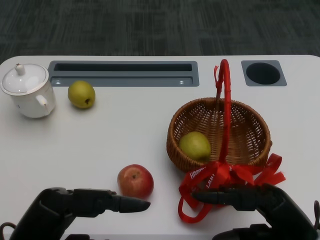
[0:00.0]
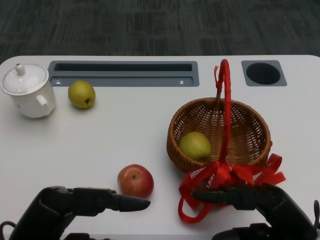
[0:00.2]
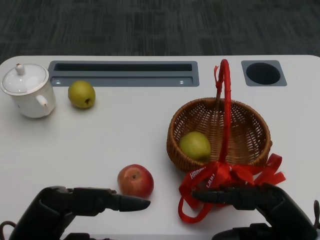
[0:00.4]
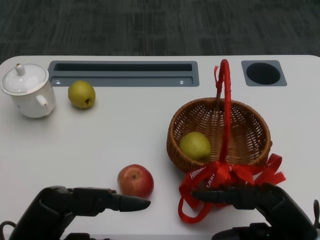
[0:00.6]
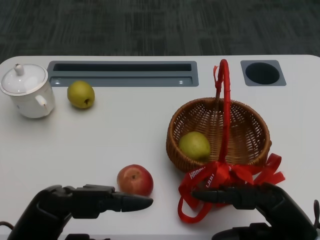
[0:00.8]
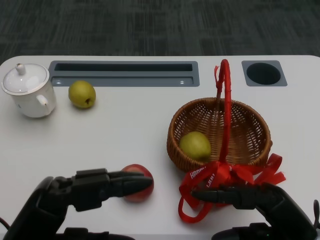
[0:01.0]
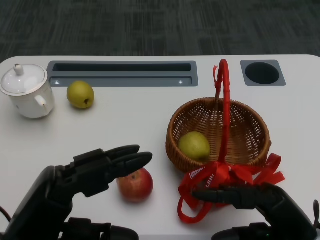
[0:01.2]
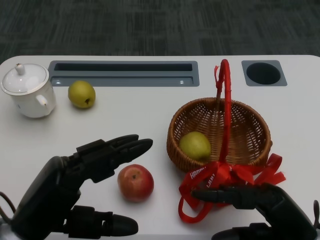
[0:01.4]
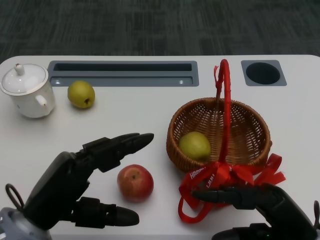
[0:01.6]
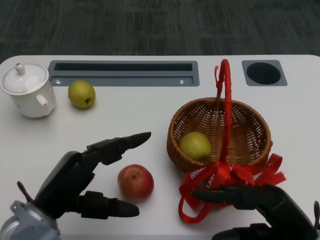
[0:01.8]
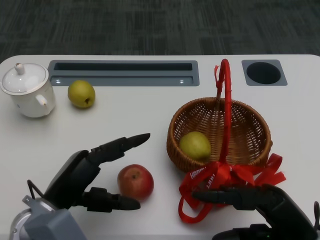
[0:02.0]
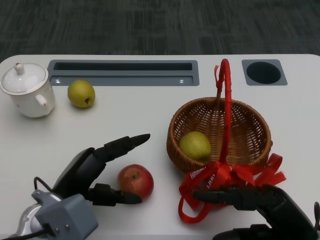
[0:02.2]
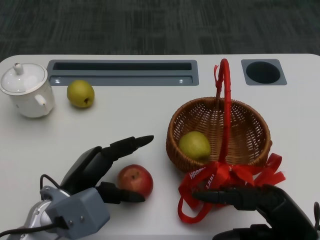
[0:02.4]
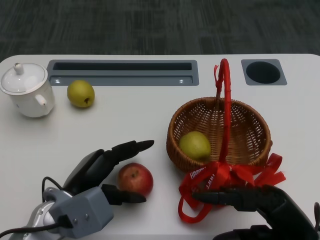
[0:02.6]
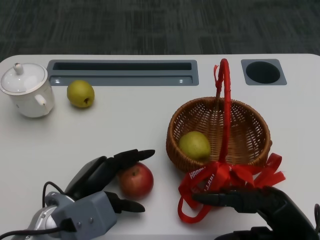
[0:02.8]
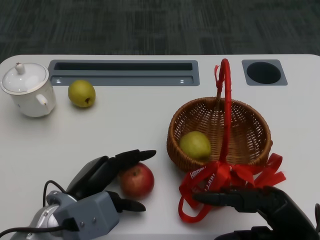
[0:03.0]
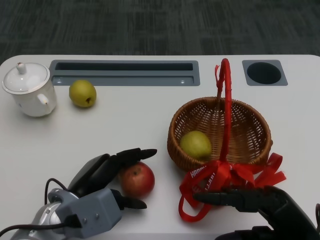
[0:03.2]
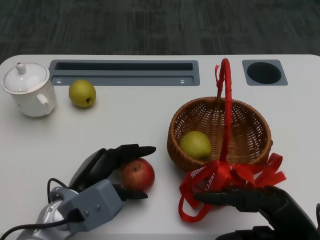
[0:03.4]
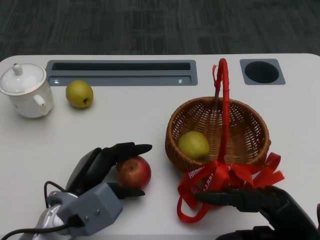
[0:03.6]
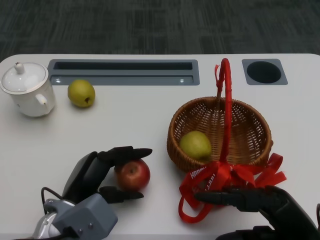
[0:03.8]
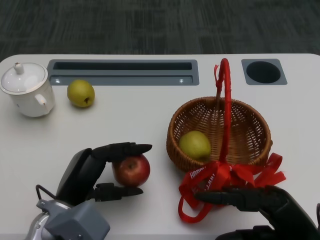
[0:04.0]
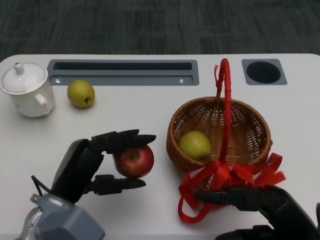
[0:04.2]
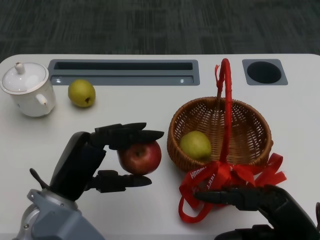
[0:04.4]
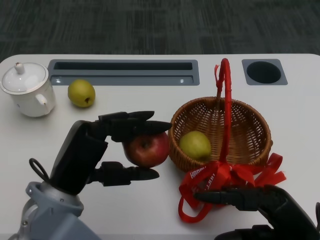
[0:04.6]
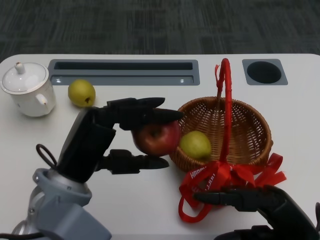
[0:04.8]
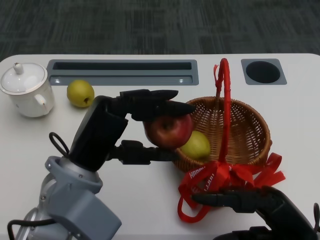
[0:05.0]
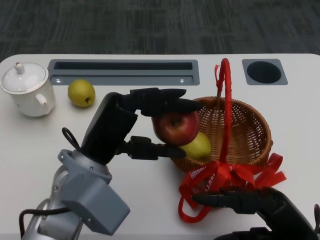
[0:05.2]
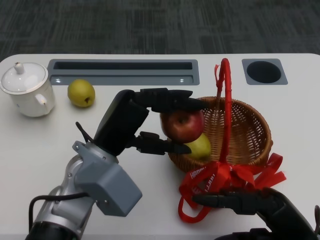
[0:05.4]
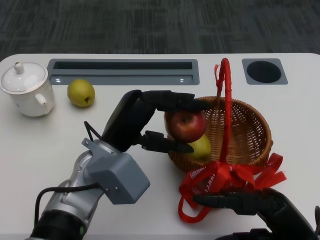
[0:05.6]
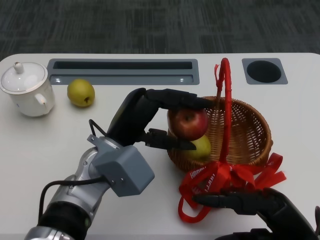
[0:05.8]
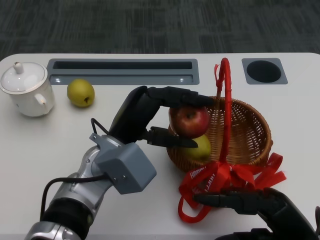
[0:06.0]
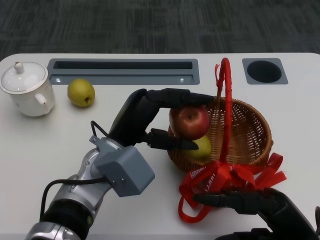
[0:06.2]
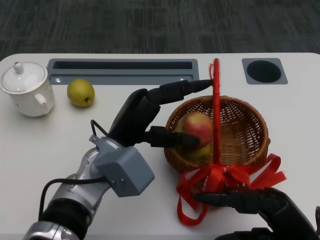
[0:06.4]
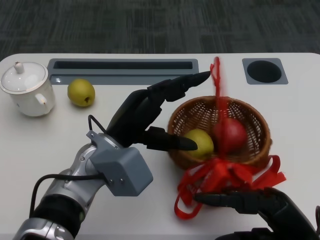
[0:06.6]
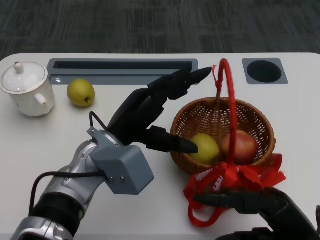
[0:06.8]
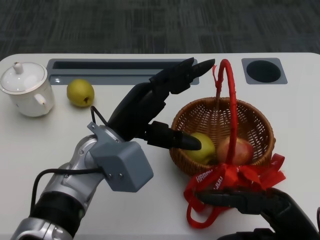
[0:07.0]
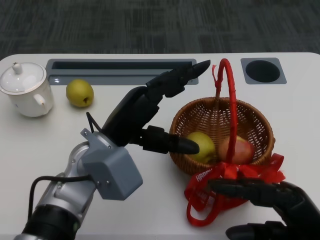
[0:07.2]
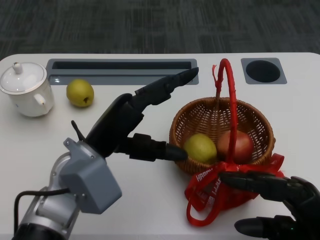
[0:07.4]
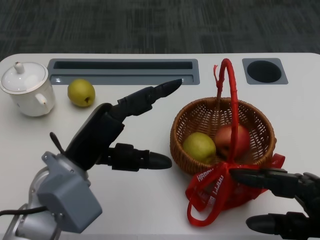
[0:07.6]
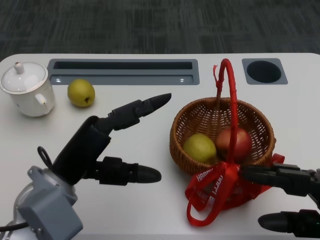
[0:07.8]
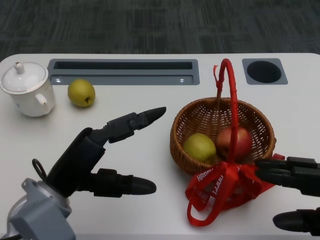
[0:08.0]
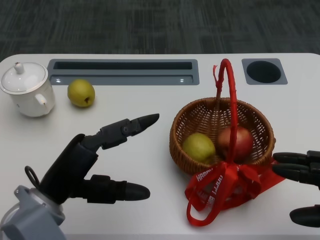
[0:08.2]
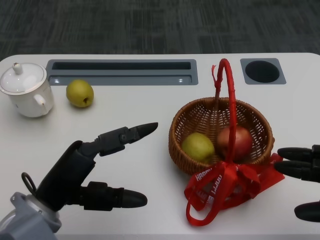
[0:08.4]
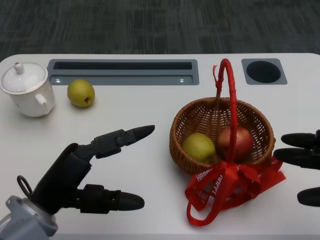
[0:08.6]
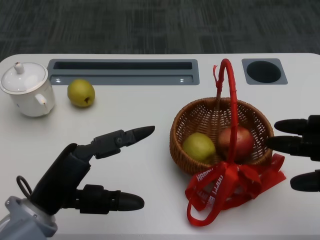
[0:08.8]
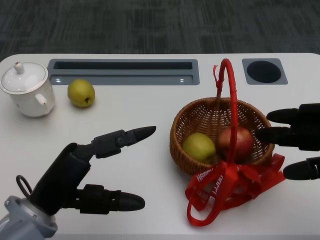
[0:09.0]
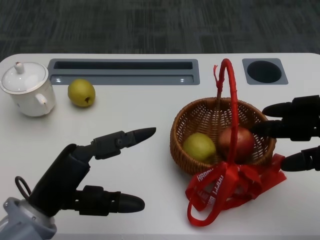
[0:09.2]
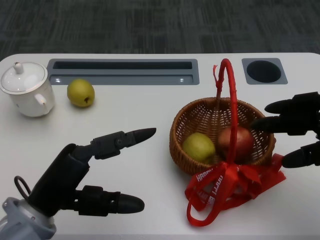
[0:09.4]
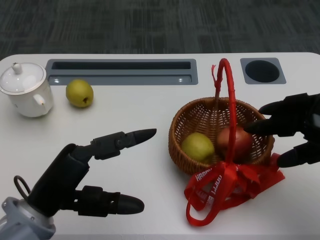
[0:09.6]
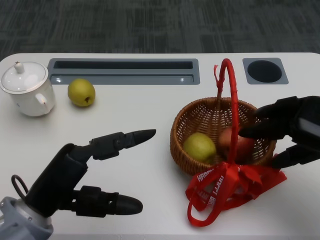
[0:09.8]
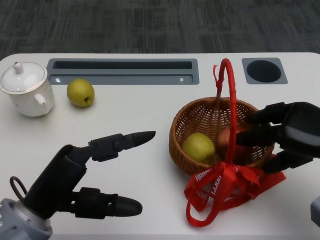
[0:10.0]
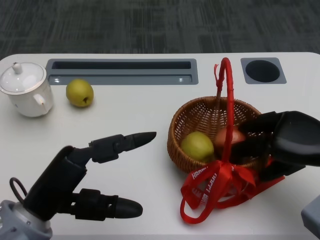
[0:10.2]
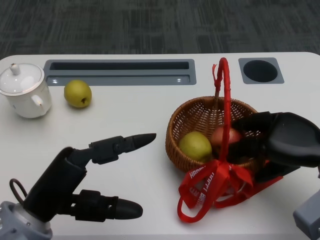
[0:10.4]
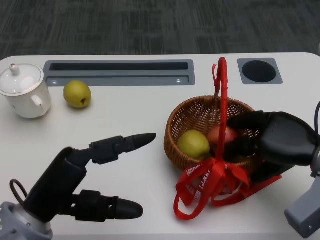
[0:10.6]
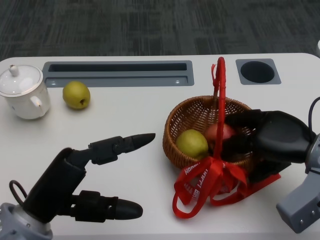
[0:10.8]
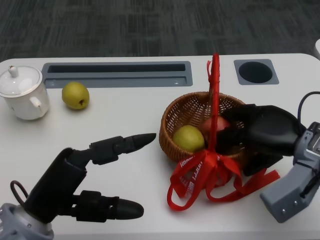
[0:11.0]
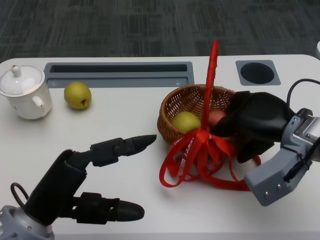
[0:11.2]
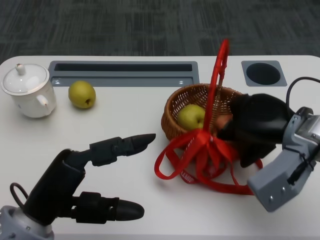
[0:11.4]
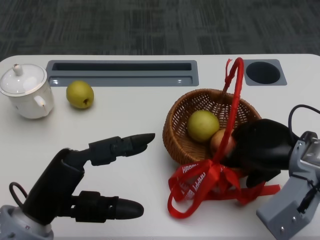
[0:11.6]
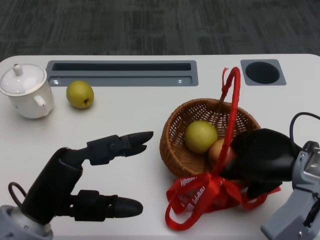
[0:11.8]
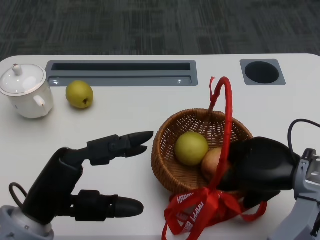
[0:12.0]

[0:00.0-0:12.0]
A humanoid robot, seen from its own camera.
Step, 0:00.6 to 0:03.0: Grasp the apple with the left gripper.
Step, 0:03.2 to 0:05.4: Place the apple into the basket with the left gripper.
Step, 0:05.6 to 0:09.2: Grasp the basket with the right gripper.
0:01.6 to 0:03.0: The left hand shifts some 10 cm downward and forward.
0:03.0 to 0:04.4: The left hand moves upward, approximately 5 cm.
0:04.4 to 0:06.0: The left hand moves to the right and forward, roughly 10 cm.
0:06.0 to 0:07.6: The left hand heads to the left, covering some 5 cm.
0:07.6 to 0:09.0: The right hand shifts about 10 cm upward, to the right and forward; the left hand moves backward, some 5 cm.
0:09.0 to 0:10.4: The right hand is displaced forward by about 5 cm.
0:10.4 to 0:12.0: The right hand changes place by approximately 5 cm.

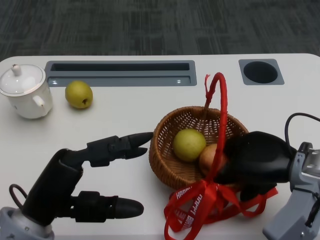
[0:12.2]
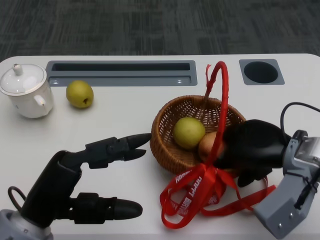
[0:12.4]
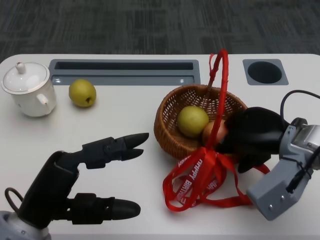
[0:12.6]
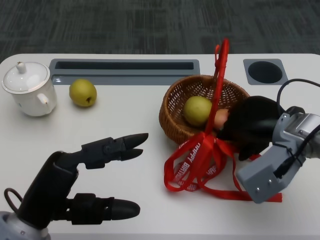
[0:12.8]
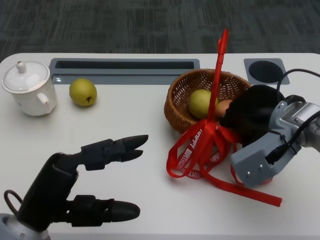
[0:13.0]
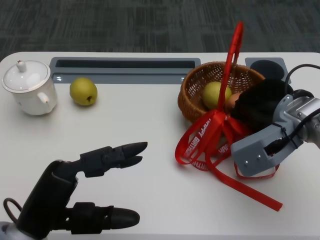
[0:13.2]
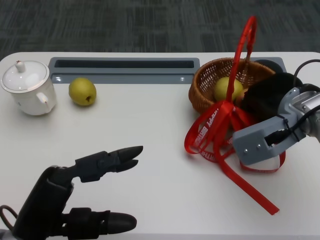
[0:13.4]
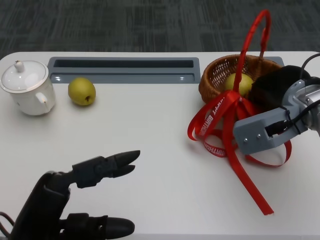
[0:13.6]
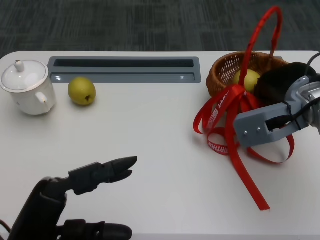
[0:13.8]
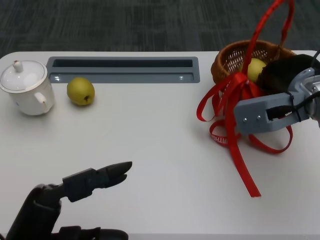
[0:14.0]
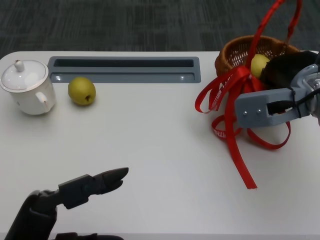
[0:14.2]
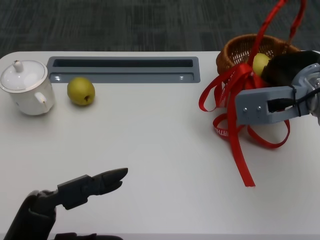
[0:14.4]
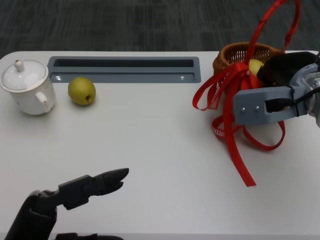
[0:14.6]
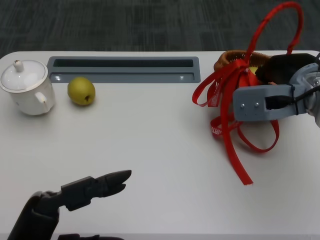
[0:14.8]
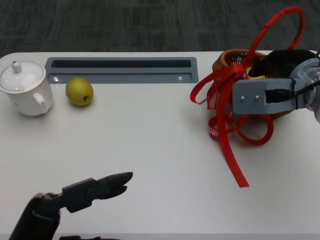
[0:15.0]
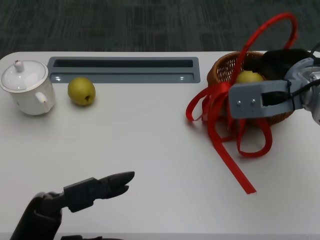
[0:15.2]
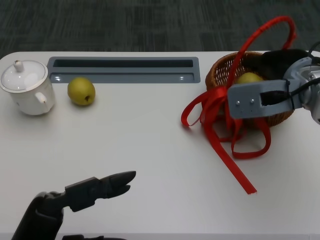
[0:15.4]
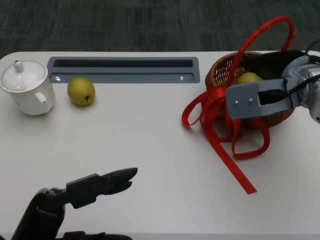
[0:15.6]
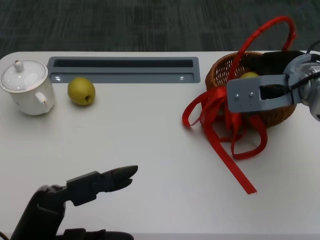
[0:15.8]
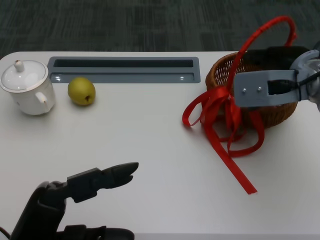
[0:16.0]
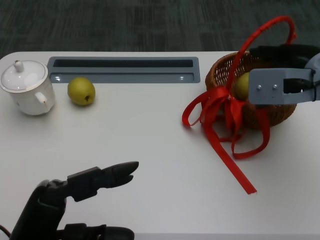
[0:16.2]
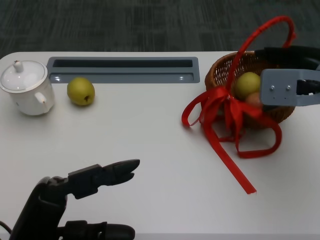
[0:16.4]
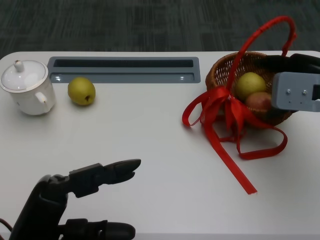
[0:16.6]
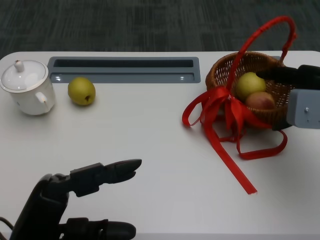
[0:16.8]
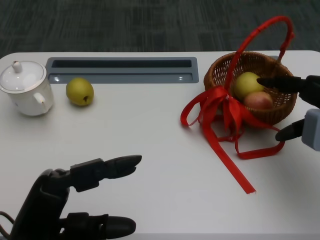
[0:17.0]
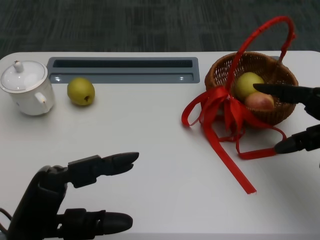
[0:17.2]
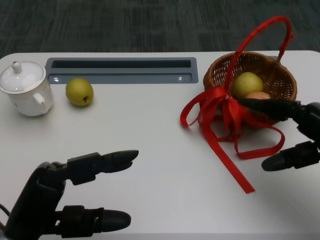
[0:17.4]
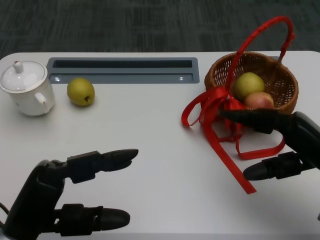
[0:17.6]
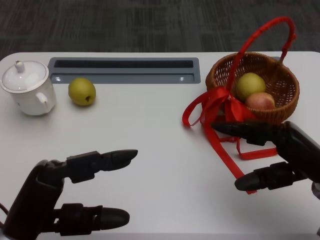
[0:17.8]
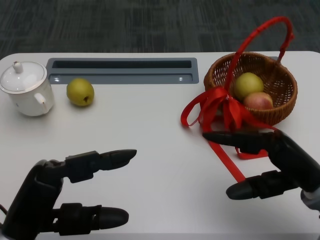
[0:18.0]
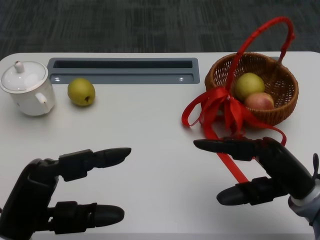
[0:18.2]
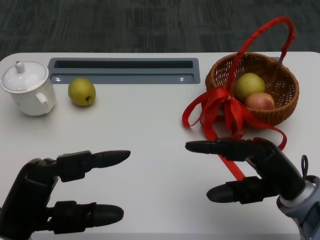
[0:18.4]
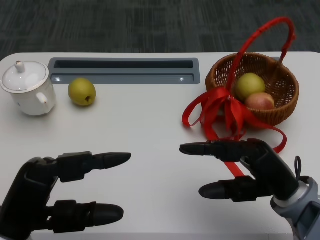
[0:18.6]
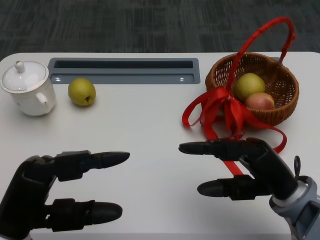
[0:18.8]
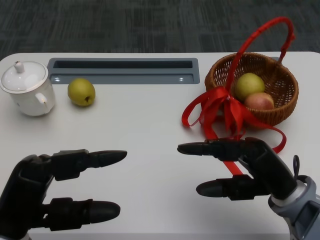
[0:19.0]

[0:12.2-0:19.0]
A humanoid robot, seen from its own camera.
0:12.2 to 0:13.6: The right hand moves forward, roughly 10 cm.
0:15.0 to 0:16.2: There are only small adjustments of the hands.
0:16.2 to 0:17.6: The right hand travels backward and downward by approximately 15 cm.
0:17.6 to 0:19.0: The right hand heads to the left, covering roughly 5 cm.

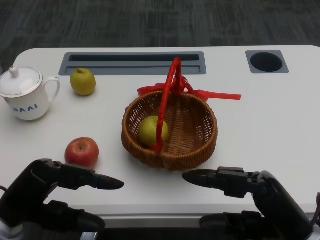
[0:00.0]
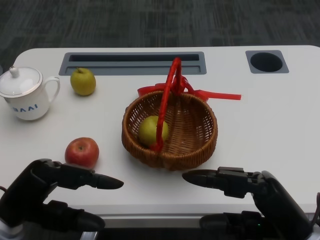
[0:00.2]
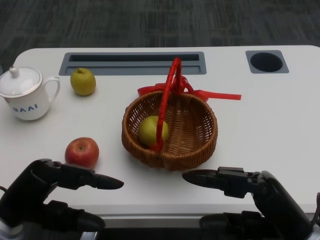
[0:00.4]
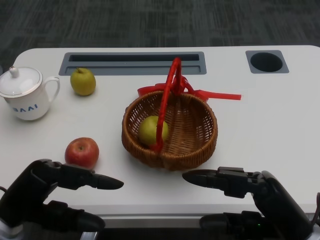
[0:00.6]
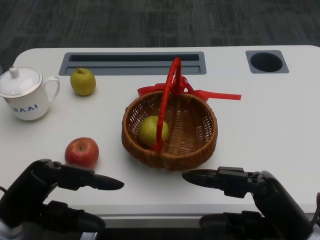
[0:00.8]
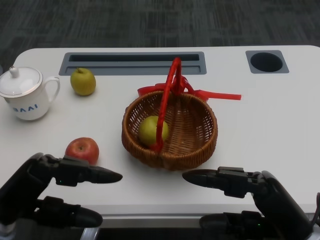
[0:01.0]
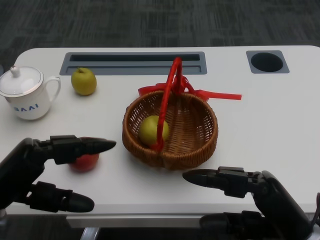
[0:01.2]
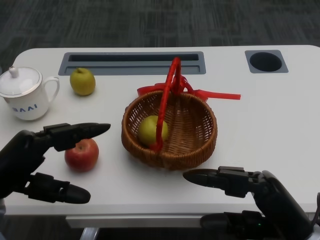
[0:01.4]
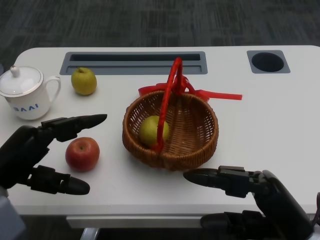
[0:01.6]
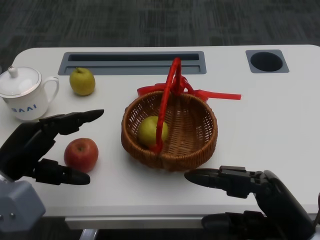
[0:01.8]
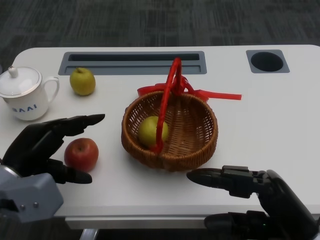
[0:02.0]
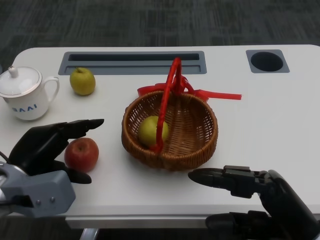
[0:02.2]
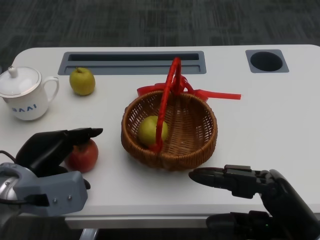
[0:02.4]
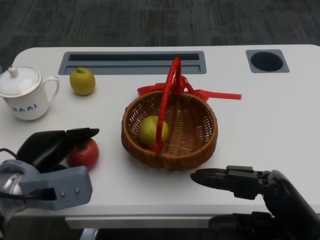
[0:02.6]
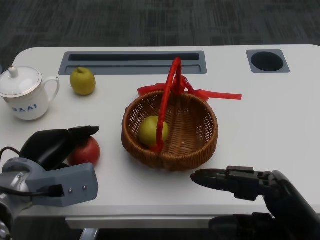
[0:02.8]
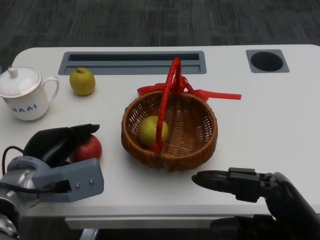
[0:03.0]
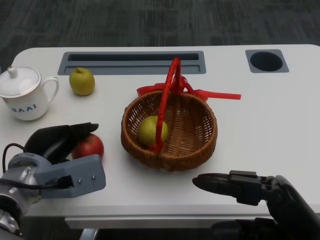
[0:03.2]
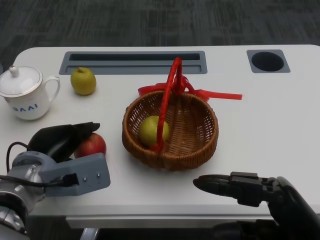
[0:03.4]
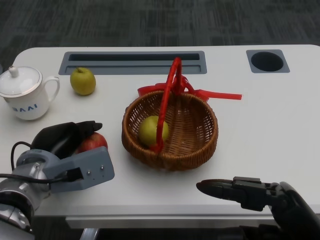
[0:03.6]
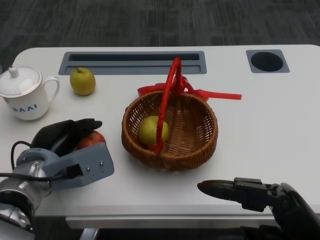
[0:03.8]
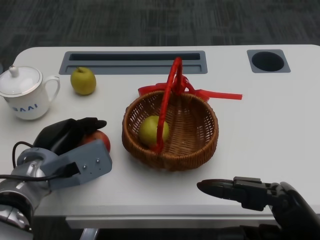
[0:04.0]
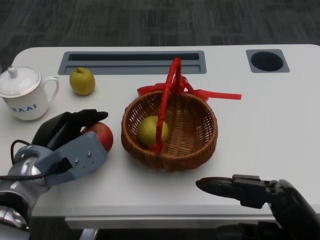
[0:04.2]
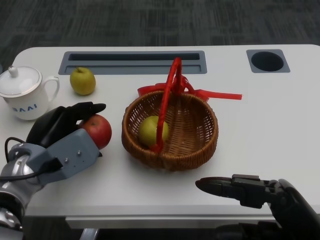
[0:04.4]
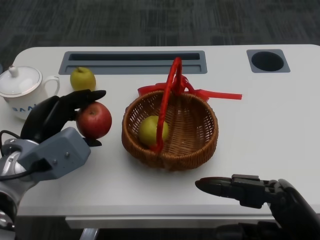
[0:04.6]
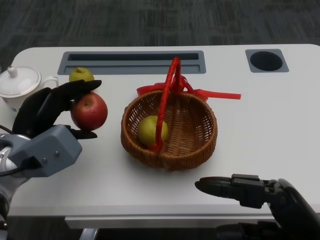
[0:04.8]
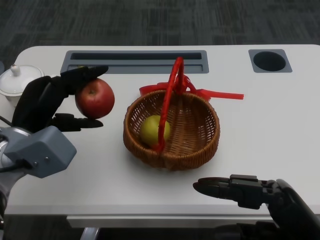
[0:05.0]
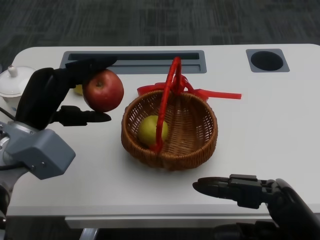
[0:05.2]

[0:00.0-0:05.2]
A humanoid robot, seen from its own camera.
Step, 0:00.8 to 0:03.2: Grasp the apple with the left gripper.
0:01.8 to 0:03.4: The left hand heads to the right, covering roughly 5 cm.
0:03.4 to 0:05.2: The left hand shifts about 5 cm upward.
